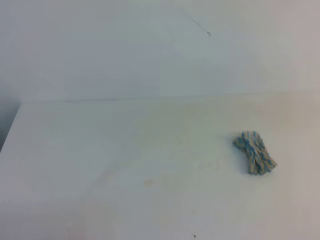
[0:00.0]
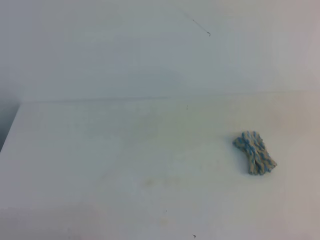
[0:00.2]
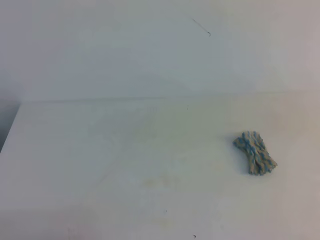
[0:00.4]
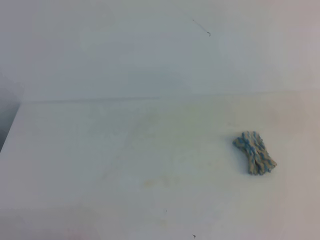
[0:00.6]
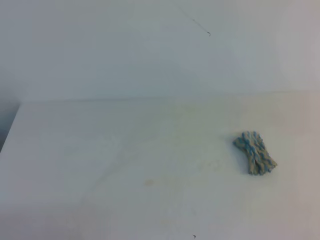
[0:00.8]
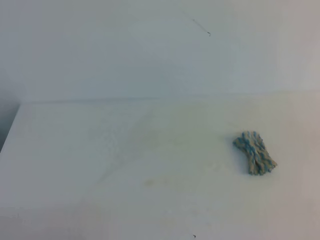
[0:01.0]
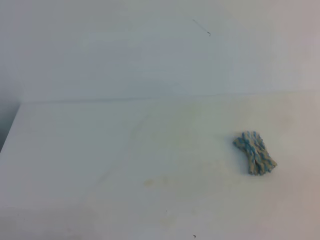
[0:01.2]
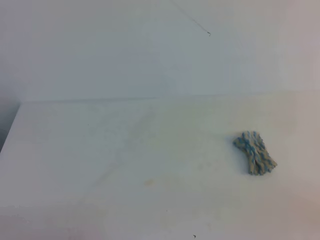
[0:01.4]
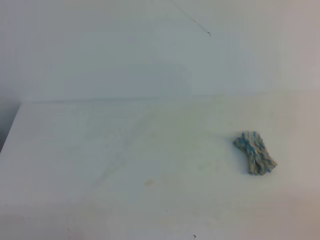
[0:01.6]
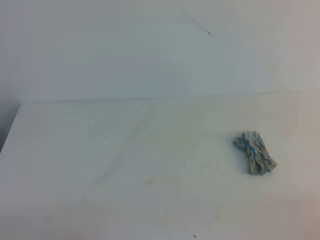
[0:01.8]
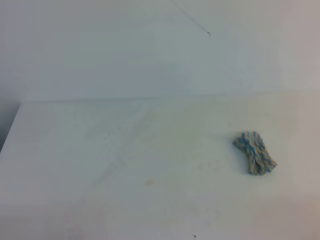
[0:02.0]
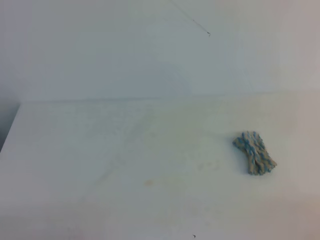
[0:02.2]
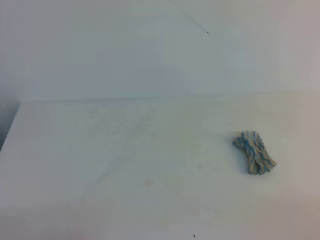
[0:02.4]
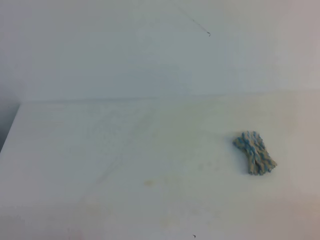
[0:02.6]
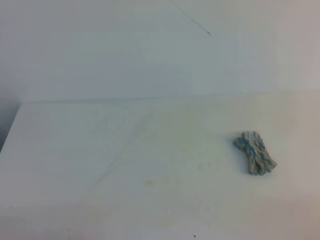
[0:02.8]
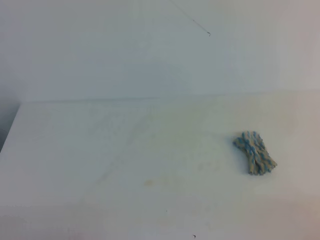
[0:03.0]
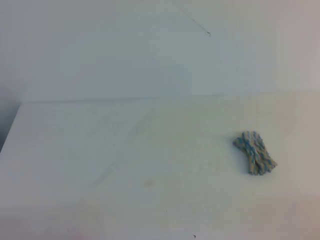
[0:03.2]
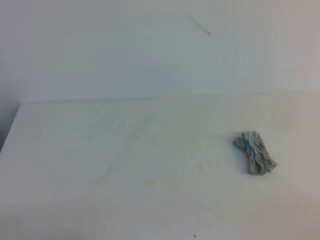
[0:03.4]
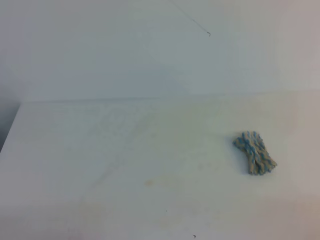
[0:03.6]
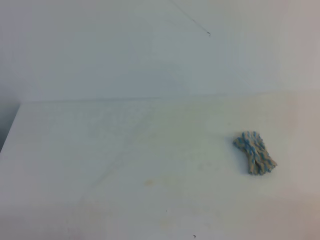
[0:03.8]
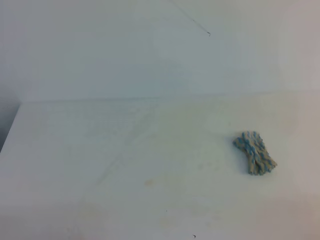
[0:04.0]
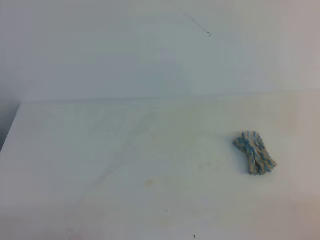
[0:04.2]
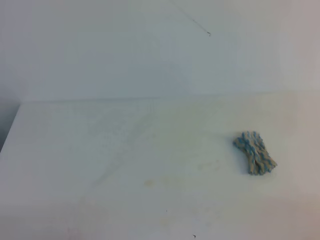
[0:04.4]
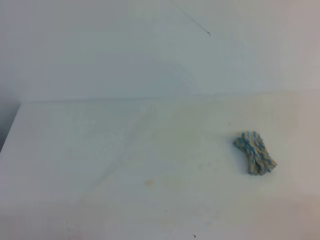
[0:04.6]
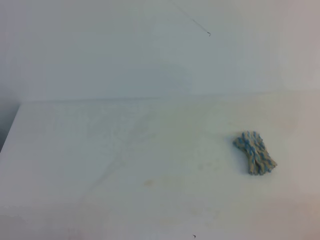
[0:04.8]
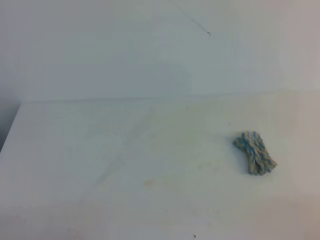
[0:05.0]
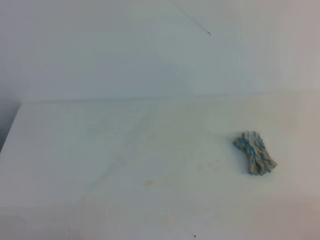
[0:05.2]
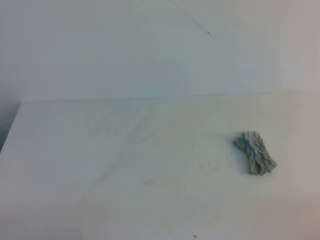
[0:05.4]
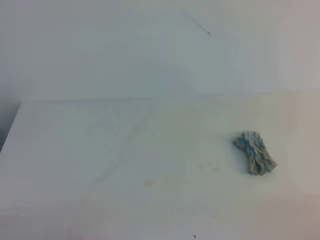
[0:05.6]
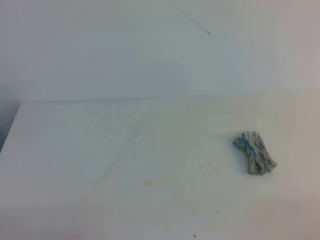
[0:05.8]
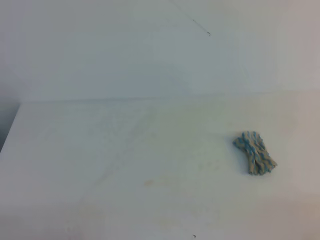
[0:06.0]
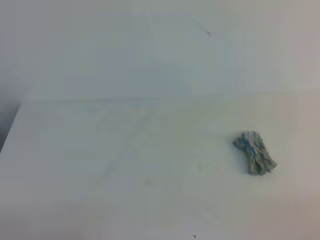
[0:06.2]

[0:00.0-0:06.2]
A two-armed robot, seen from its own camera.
0:03.2 to 0:06.2: Both grippers stay put.
